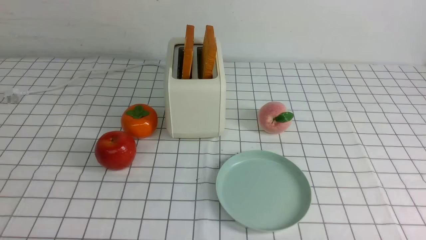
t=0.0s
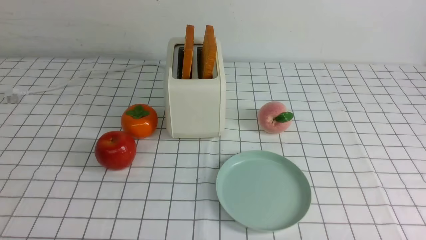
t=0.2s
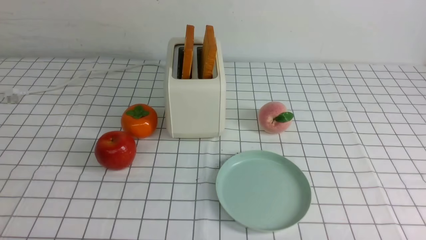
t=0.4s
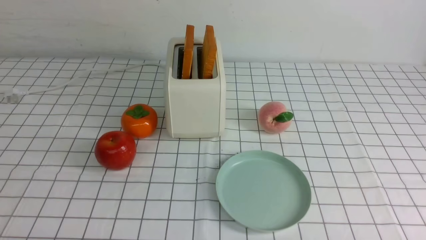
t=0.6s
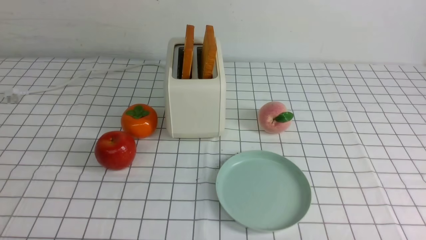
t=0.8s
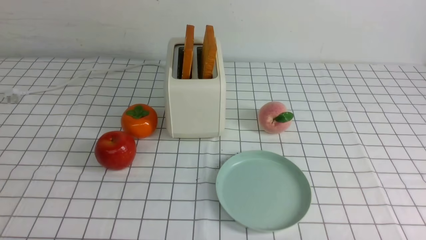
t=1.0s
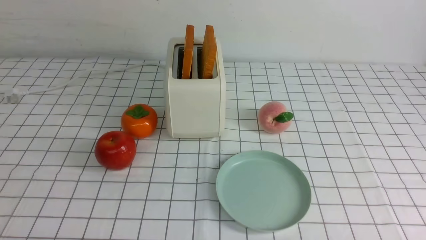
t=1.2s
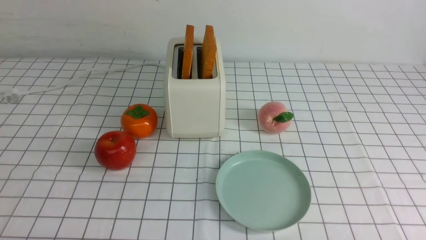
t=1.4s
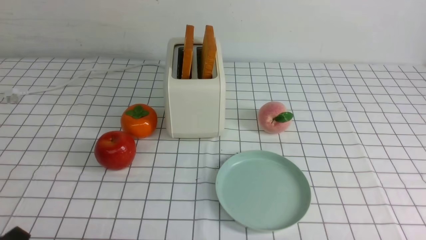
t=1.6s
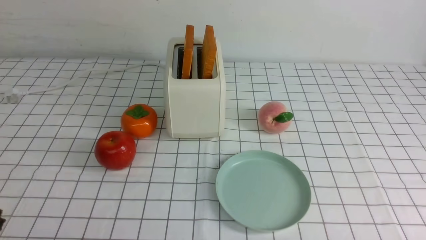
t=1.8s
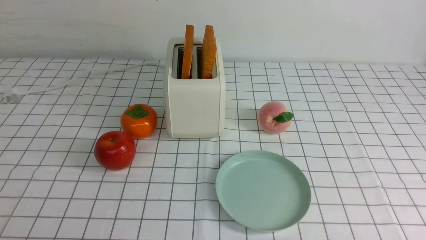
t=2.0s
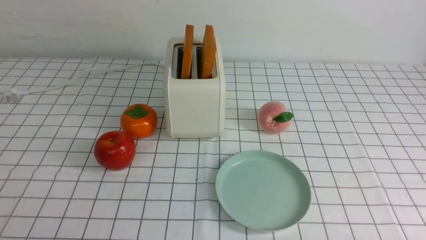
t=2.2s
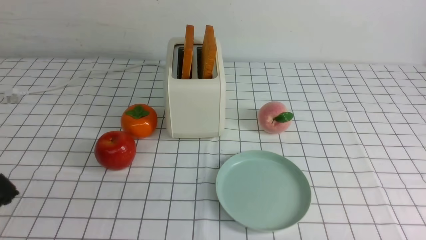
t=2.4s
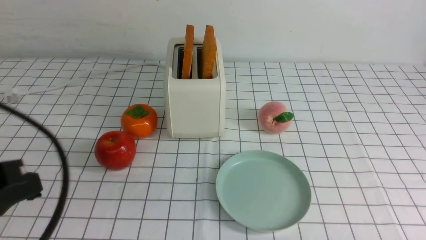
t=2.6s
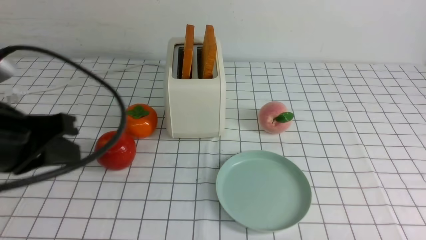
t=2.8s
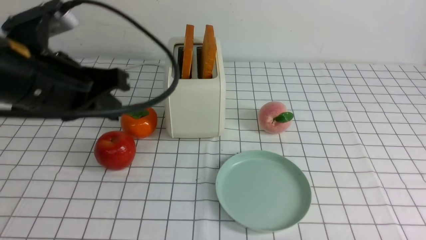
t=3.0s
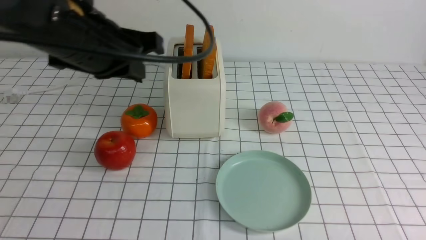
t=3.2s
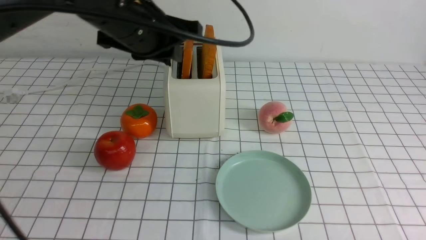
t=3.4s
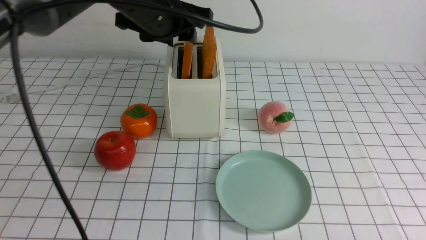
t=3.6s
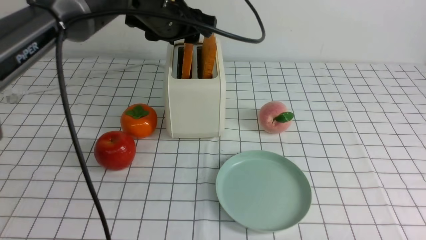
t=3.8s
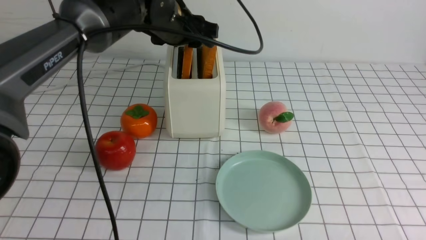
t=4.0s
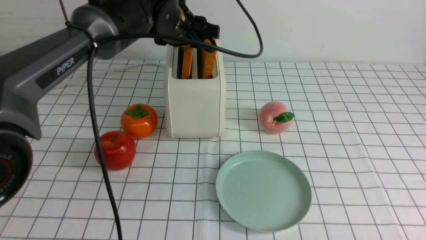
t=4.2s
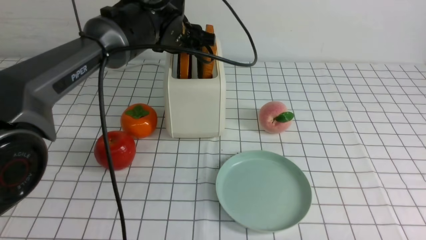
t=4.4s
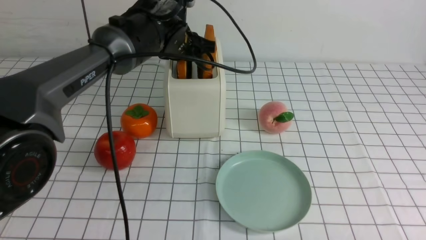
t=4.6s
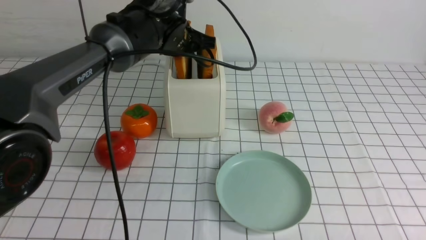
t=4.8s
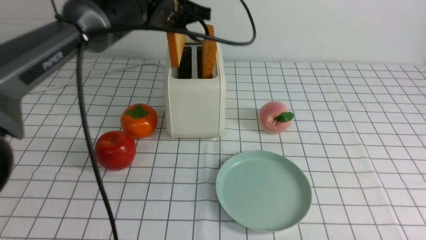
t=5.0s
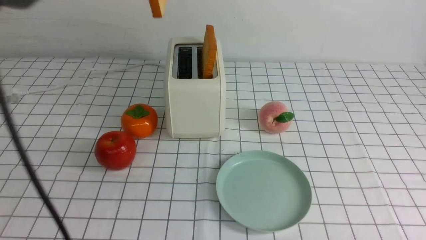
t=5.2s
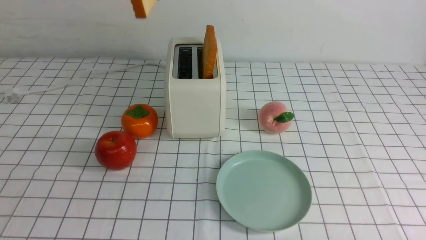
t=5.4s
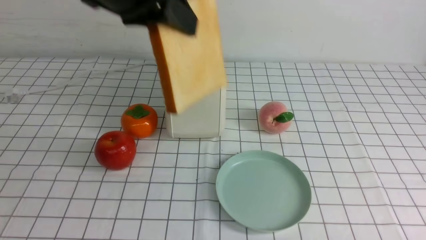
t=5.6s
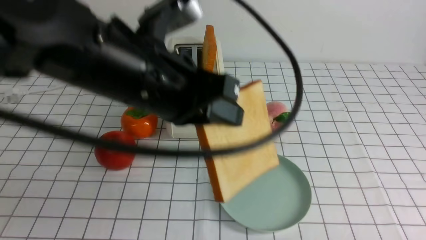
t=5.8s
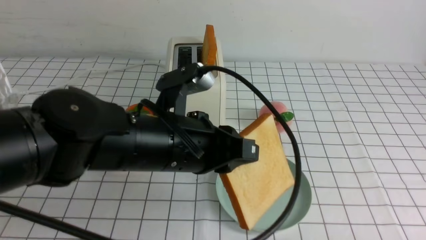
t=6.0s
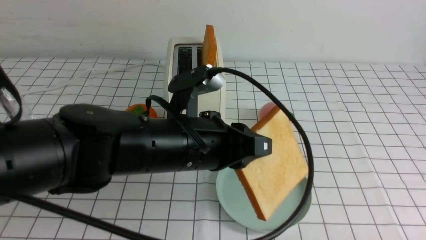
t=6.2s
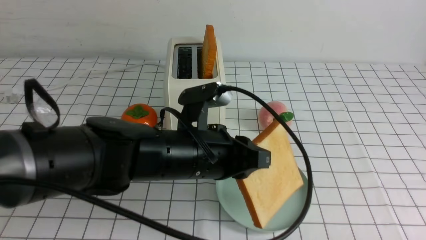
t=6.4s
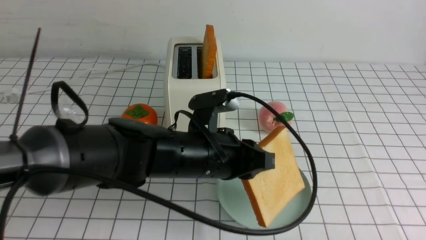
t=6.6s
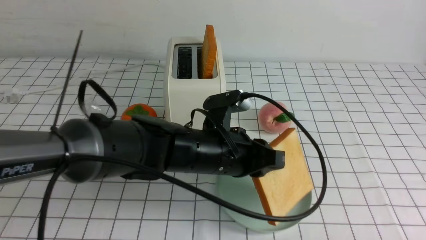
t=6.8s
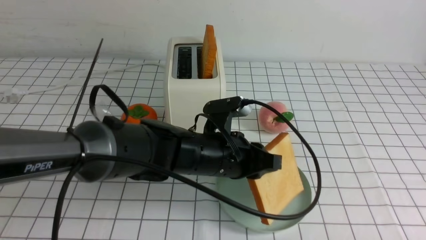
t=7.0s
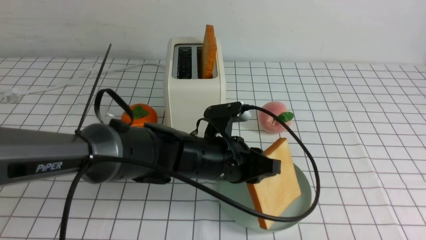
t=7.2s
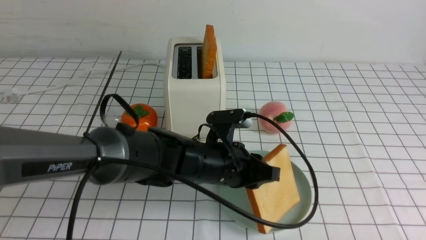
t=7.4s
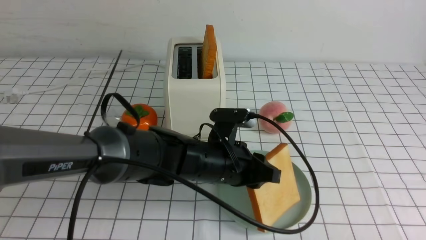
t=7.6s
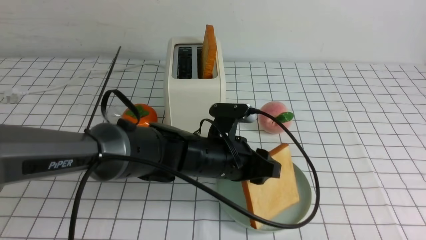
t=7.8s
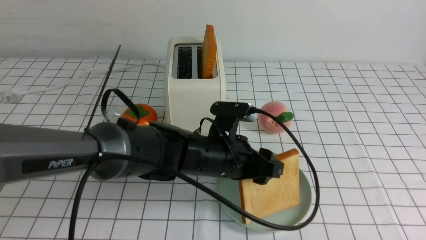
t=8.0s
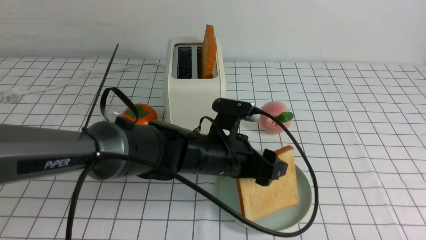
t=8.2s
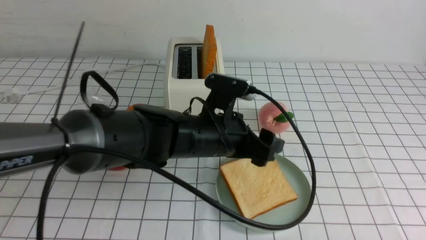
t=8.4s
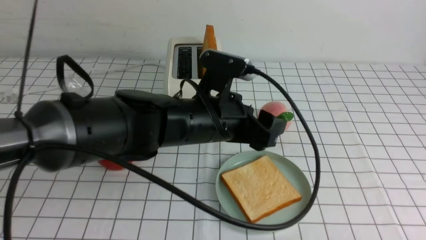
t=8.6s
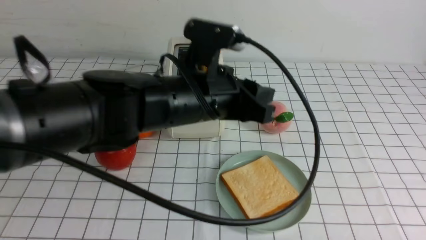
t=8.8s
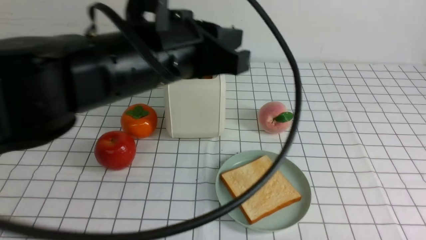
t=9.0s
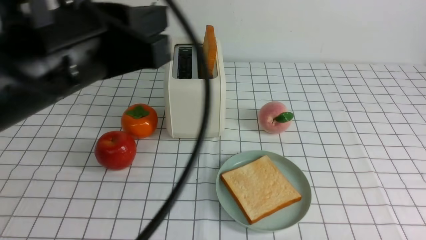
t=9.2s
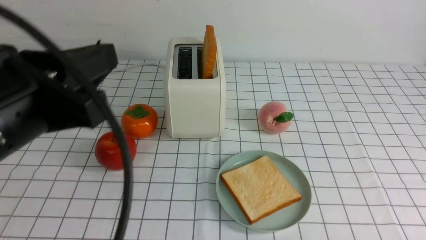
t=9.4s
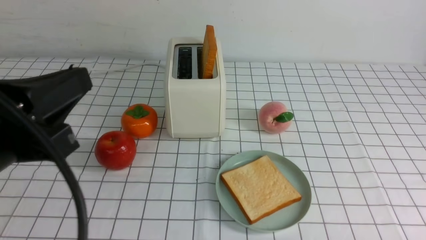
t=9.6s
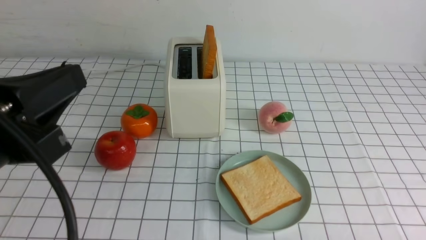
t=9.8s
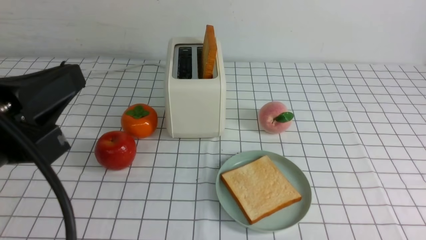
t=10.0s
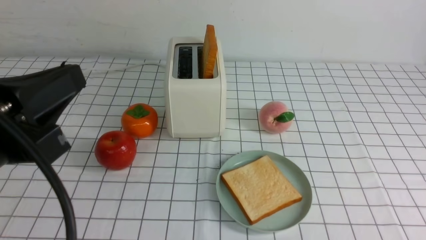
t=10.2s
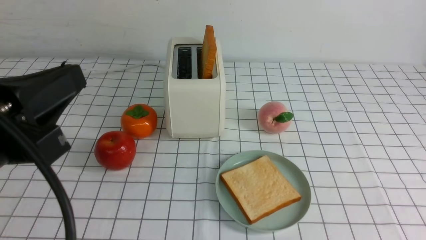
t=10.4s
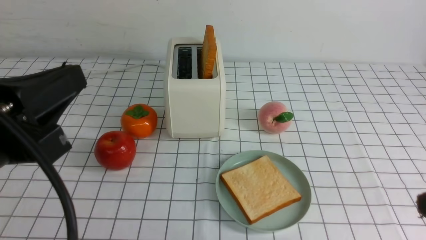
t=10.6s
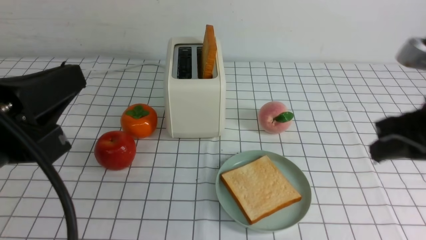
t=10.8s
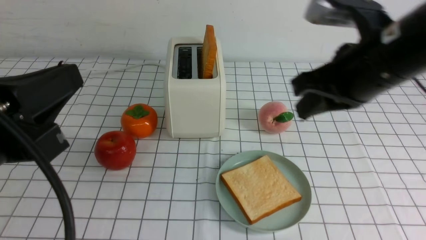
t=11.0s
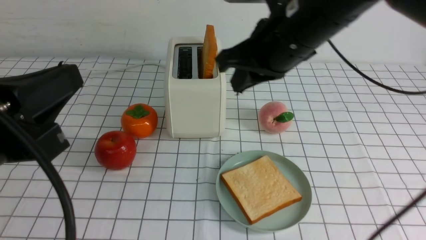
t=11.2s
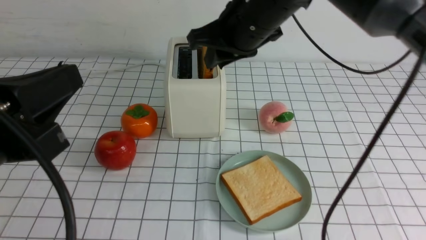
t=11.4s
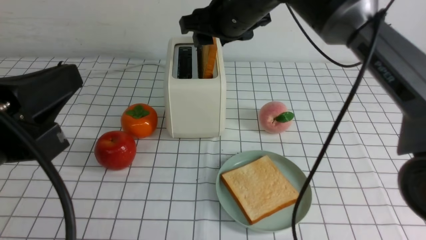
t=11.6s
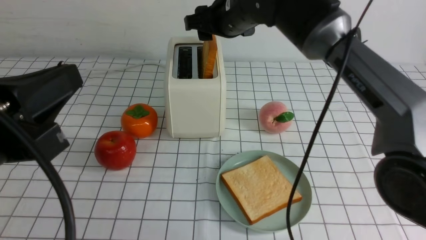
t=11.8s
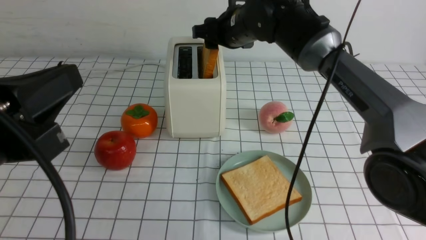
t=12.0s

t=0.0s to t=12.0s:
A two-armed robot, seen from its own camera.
Task of the whole recording: take toasted bread from bread machine on white checkered table place on plate.
Step, t=0.0s to t=4.8s: use the left arm to take out a slice of bread.
Step, t=5.0s to t=8.6s: use the left arm to put a slice of bread into the empty plate.
t=1.6s to t=3.0s: The left gripper is displaced forward and upward by approximately 25 cm, and closes up.
t=3.0s to t=4.4s: The left gripper heads forward and to the right, covering approximately 25 cm, and opens.
t=4.4s to t=6.0s: The left gripper travels backward by some 25 cm, and closes up.
t=6.0s to t=7.6s: The left gripper goes roughly 15 cm downward, forward and to the right.
t=7.6s to t=9.0s: The left gripper moves upward and to the left, roughly 20 cm, and opens and closes again.
t=9.0s to t=10.4s: The left gripper travels backward and to the left by approximately 15 cm. Meanwhile the right gripper travels upward by roughly 10 cm, and closes up.
t=10.4s to t=12.0s: The right gripper is displaced forward and to the left by some 50 cm, and opens up.

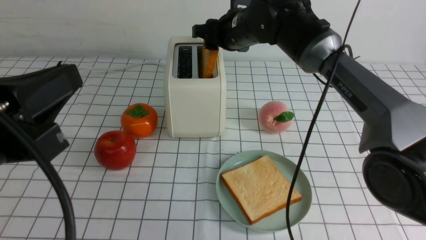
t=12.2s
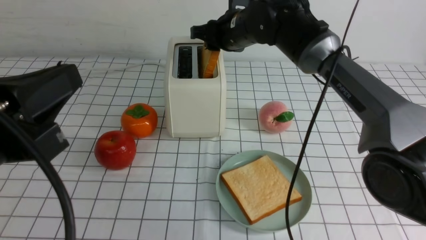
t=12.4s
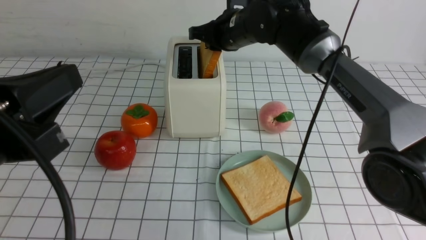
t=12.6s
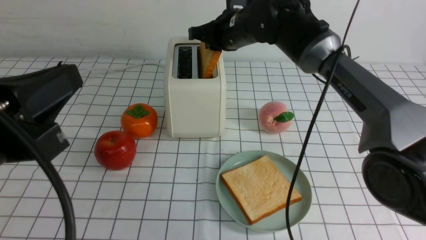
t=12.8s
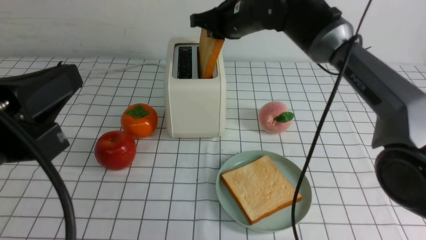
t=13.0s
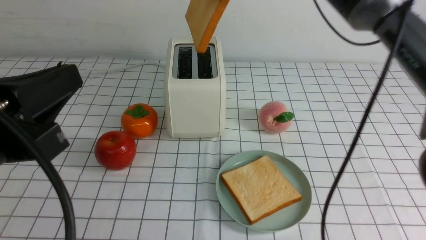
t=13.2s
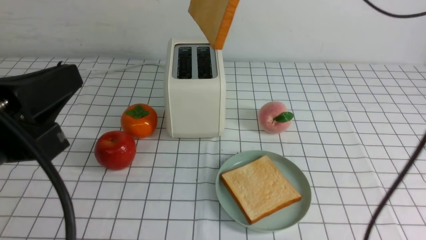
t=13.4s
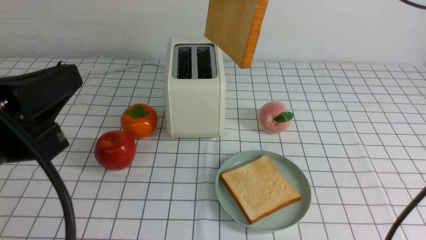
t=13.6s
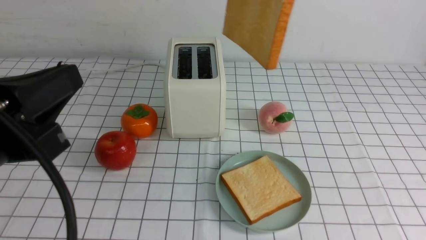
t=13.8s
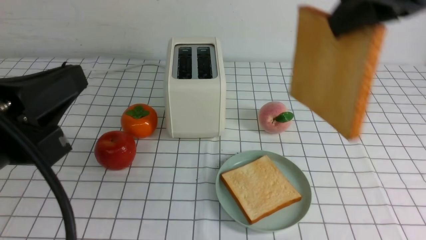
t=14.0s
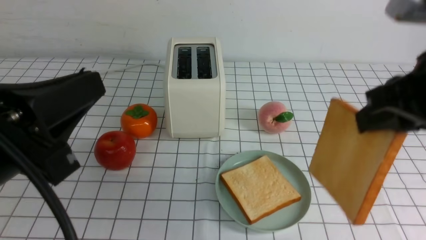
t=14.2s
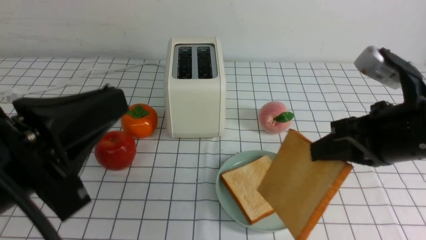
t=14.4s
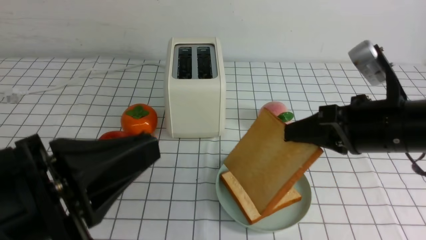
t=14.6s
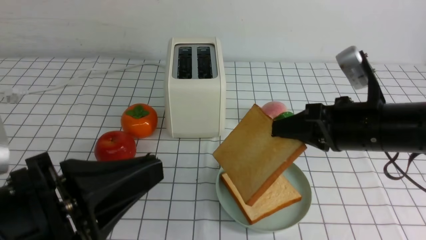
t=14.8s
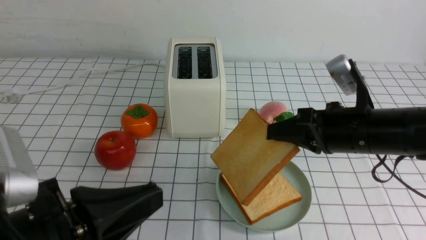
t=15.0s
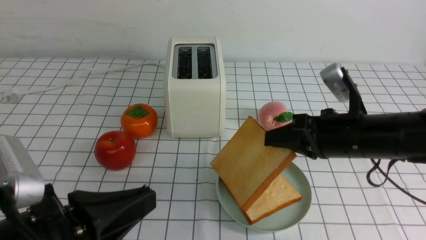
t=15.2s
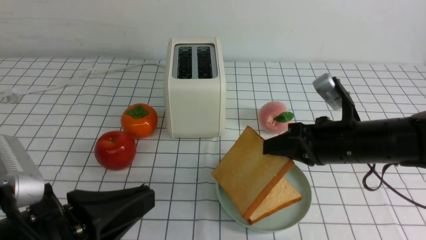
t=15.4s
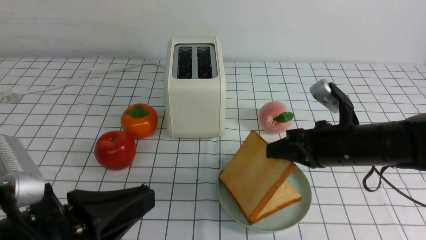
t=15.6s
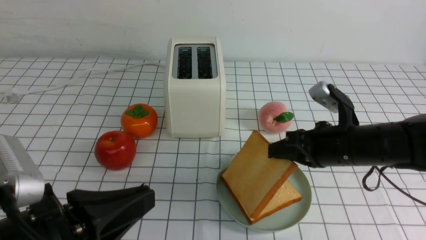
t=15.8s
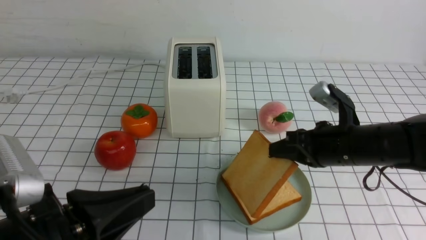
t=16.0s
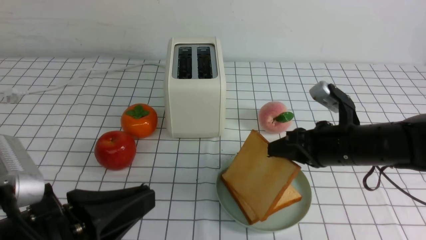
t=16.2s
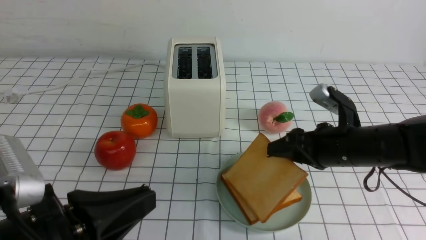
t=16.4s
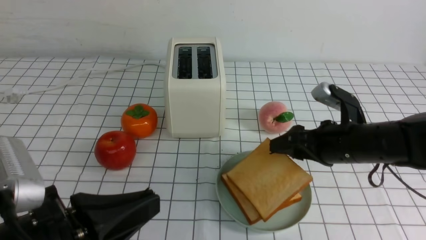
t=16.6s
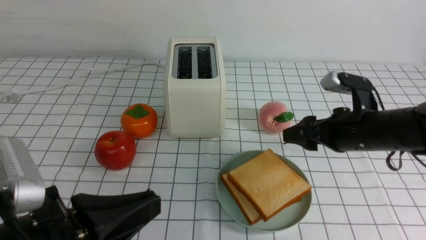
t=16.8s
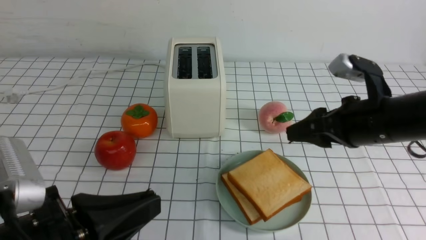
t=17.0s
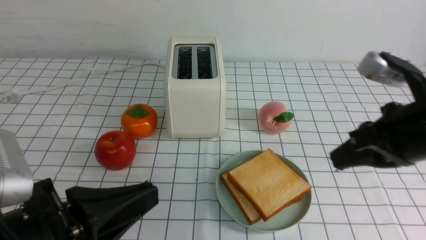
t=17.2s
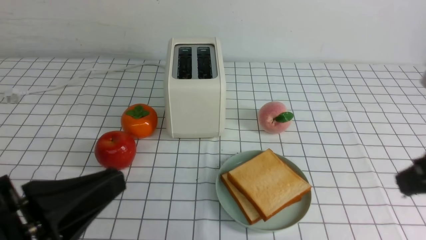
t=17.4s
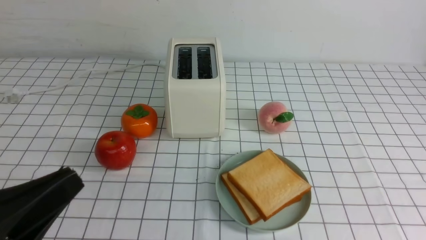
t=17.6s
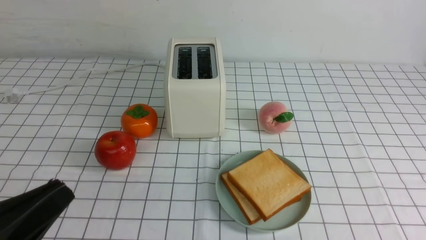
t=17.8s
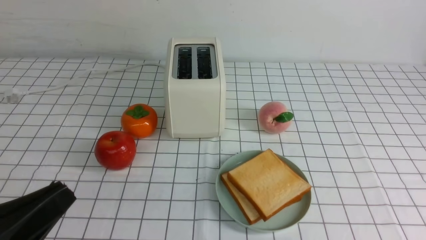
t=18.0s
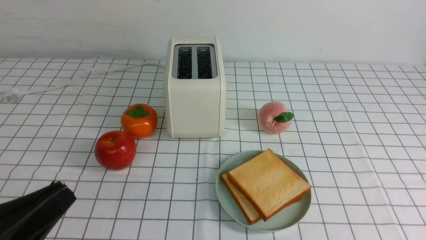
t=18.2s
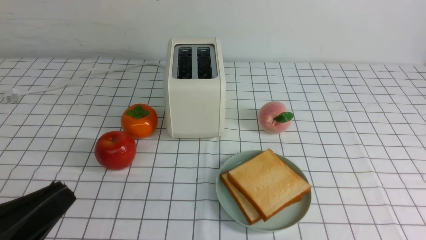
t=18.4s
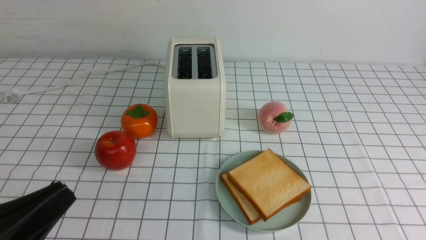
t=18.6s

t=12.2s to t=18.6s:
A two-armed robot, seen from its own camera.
Task of the whole recording: take toasted bread from bread machine on white checkered table place on plate.
Step, t=13.4s to t=16.6s: use the right arm to put a slice of bread into the plate.
t=12.2s to t=13.8s: The right gripper goes roughly 30 cm backward, upward and to the right, and closes its fingers.
t=13.8s to t=15.4s: The left gripper heads downward, covering about 10 cm; the right gripper moves downward, some 25 cm.
t=15.4s to t=17.0s: The right gripper is displaced upward by approximately 5 cm, and opens up.
t=17.0s to t=18.6s: The left gripper shifts approximately 5 cm to the left. The right gripper is displaced backward by about 30 cm, and closes up.
